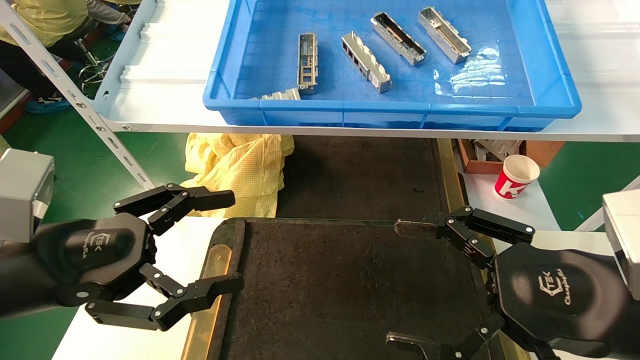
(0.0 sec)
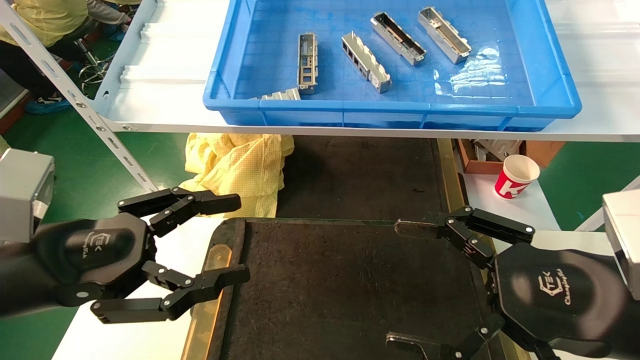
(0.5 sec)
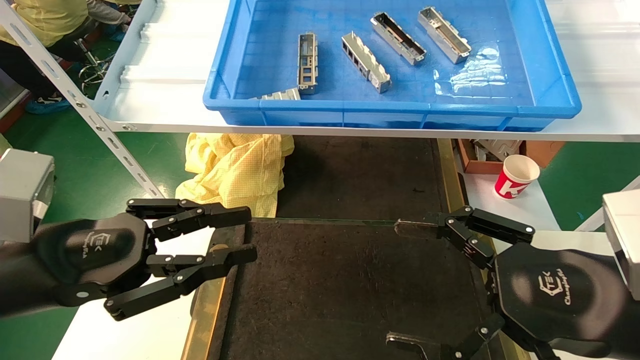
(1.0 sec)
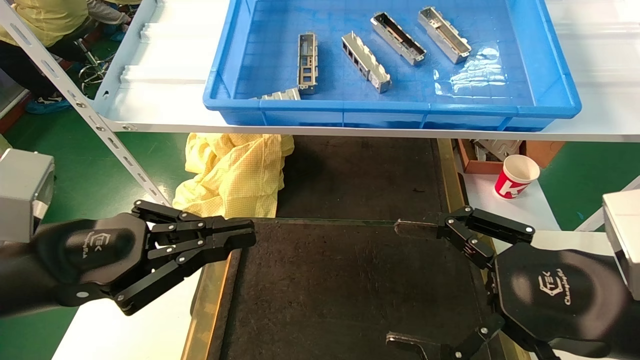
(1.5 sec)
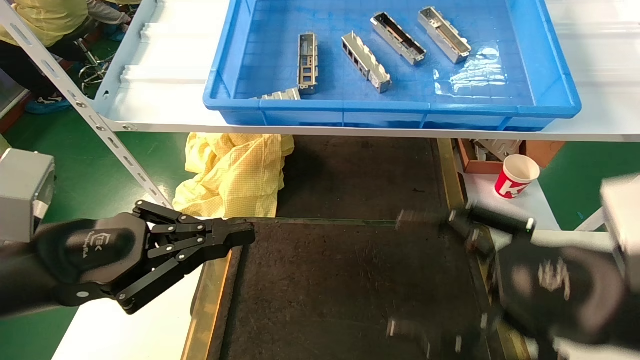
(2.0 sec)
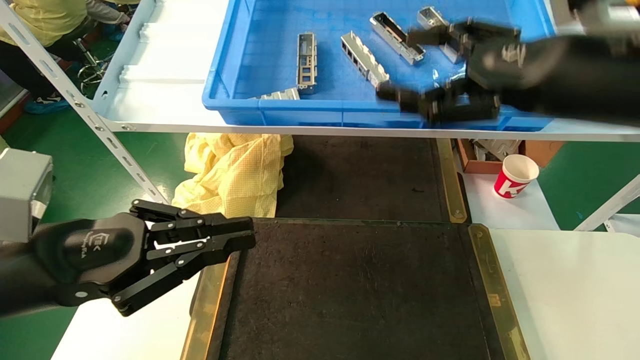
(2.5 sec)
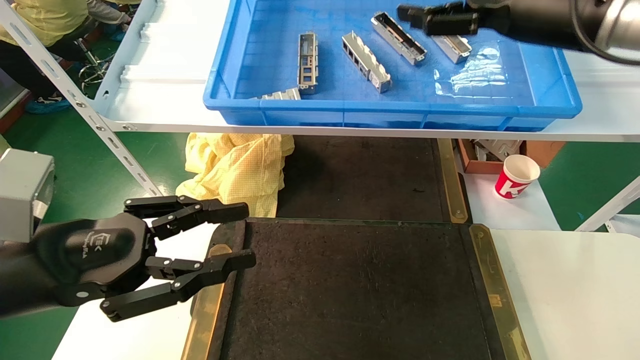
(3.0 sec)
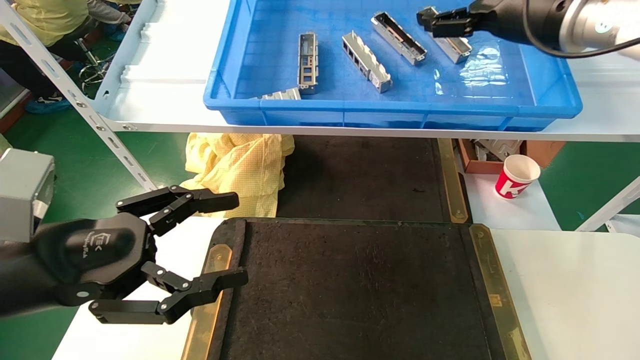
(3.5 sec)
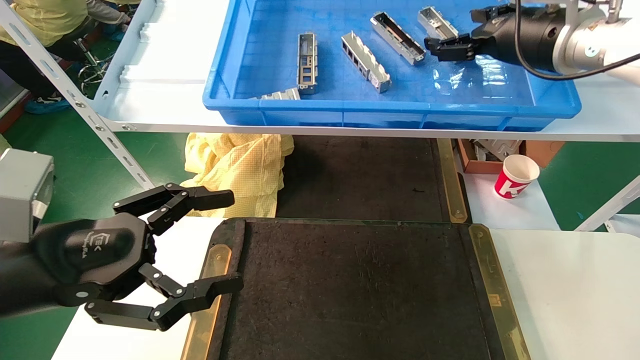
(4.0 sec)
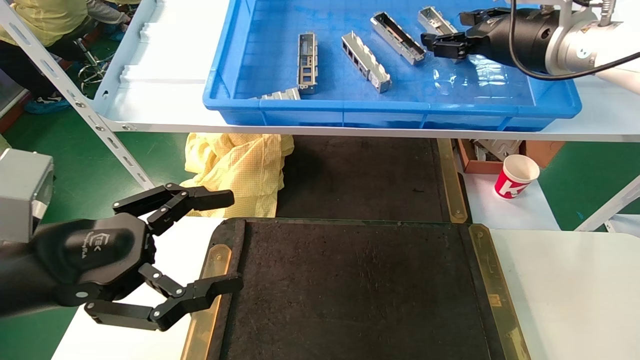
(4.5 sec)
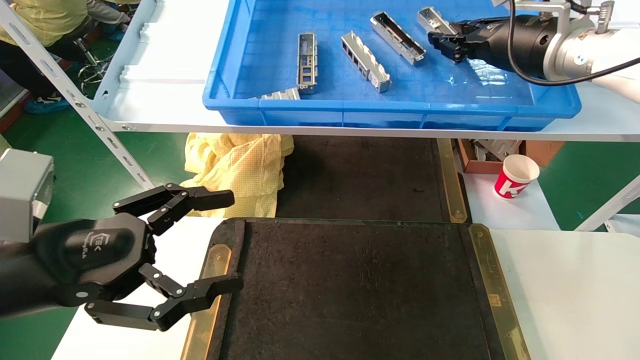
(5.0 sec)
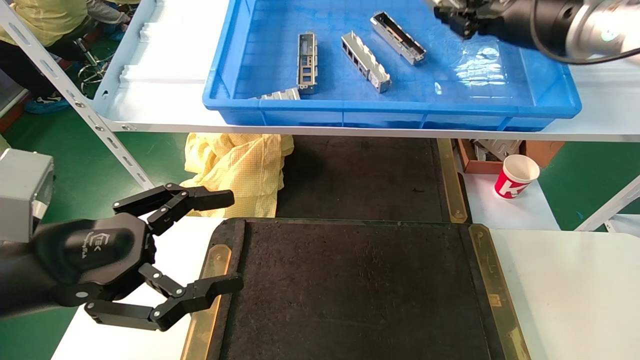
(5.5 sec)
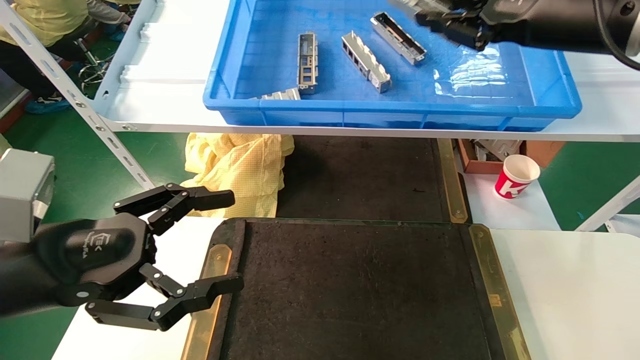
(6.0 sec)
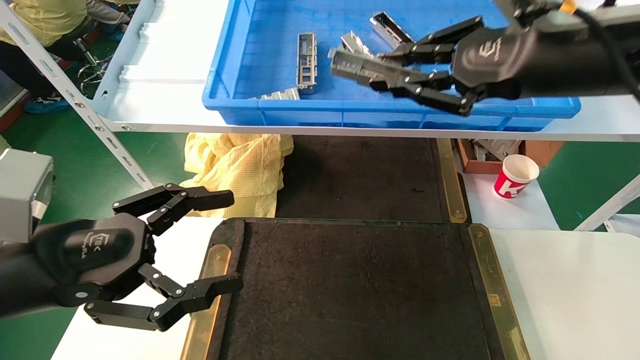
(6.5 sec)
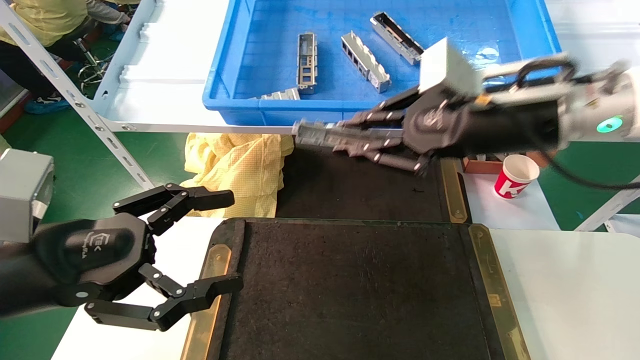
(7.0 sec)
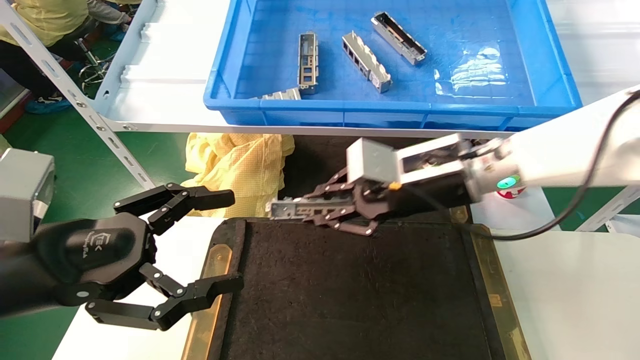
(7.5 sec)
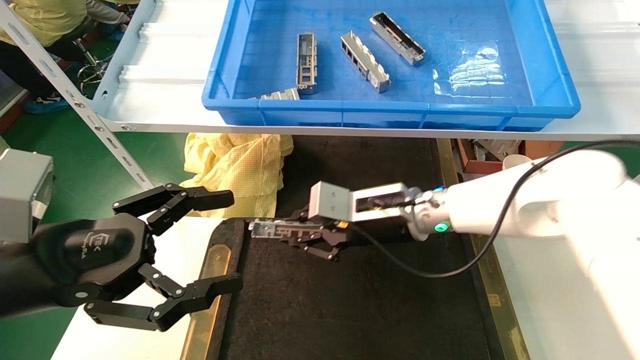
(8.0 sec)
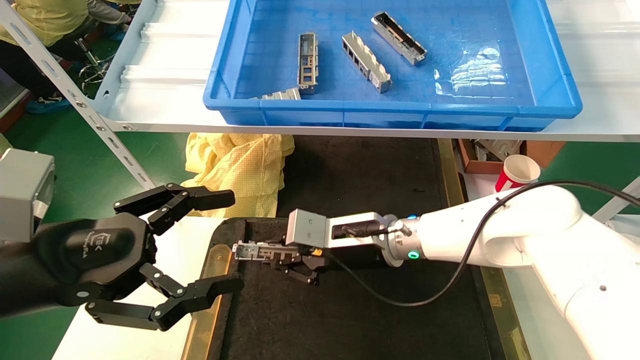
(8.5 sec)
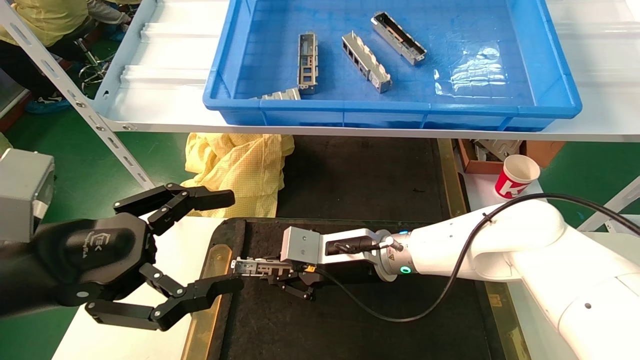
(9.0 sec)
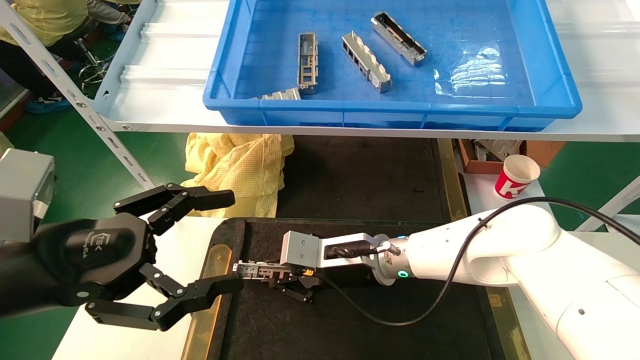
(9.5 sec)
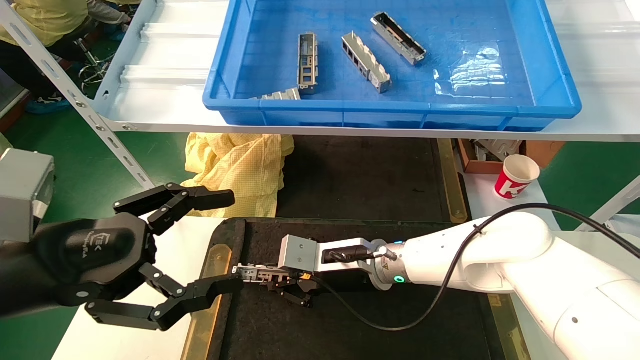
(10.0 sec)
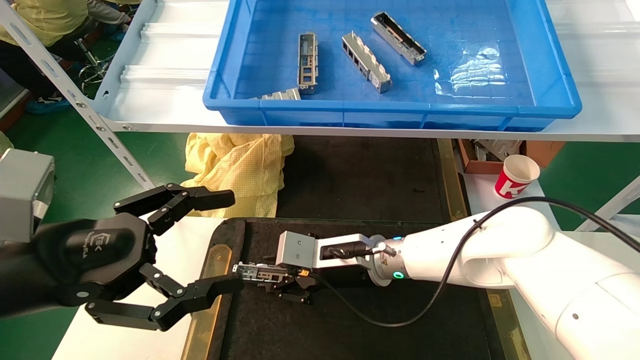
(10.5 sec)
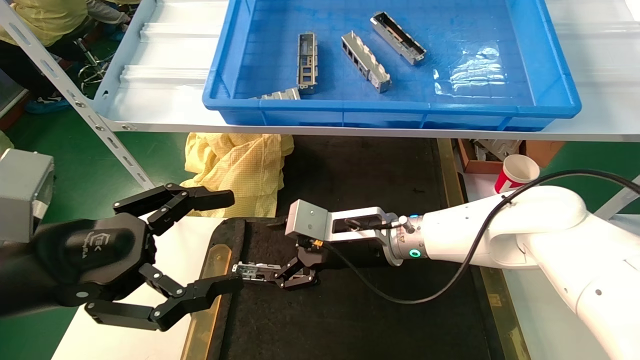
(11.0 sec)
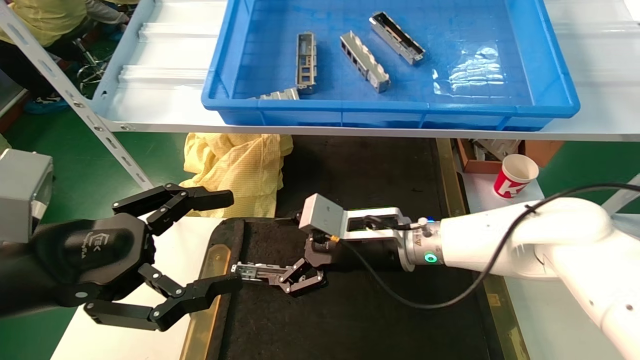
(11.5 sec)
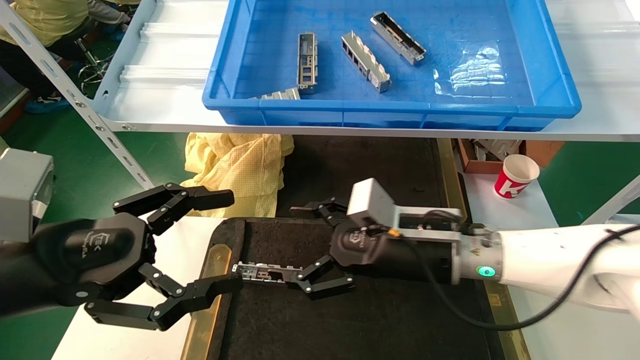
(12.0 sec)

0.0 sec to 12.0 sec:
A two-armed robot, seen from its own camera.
Task of the whole recording: grasp the part and place them on the black container.
Step, 2.0 sec to 5.5 sec: Pick up and lift the front USB bracket from the feeding area.
Step, 6.0 sec to 11.0 sec: Place the front USB bracket into the box.
0.0 sec to 2.0 sec: The left gripper closes its fingers.
2.0 sec to 4.0 sec: The right gripper shifts about 30 cm forward and upward. The left gripper opens up.
4.0 sec to 6.0 sec: The right gripper moves backward, some 10 cm, and closes.
6.0 sec to 8.0 sec: The right gripper shifts roughly 30 cm downward and to the left.
8.0 sec to 10.0 sec: The right gripper moves downward, approximately 10 cm.
10.0 sec to 12.0 sec: The right gripper goes approximately 10 cm to the right, backward and upward, and opens its fingers.

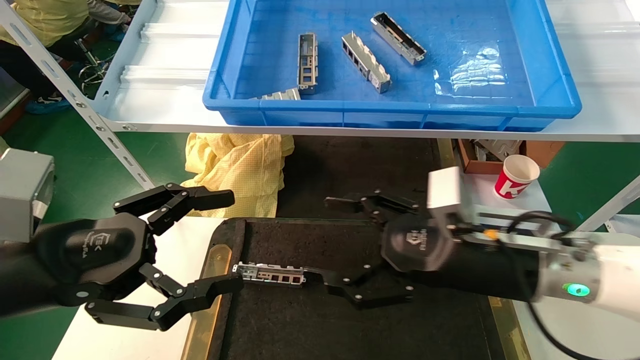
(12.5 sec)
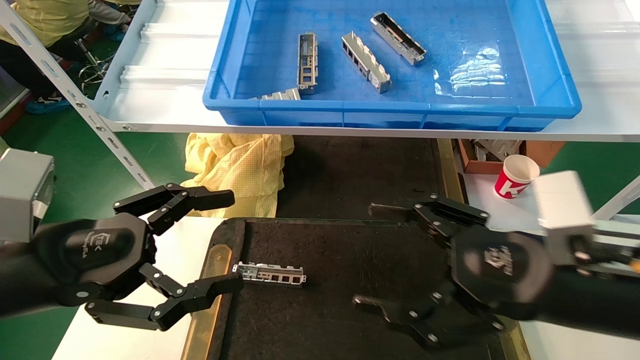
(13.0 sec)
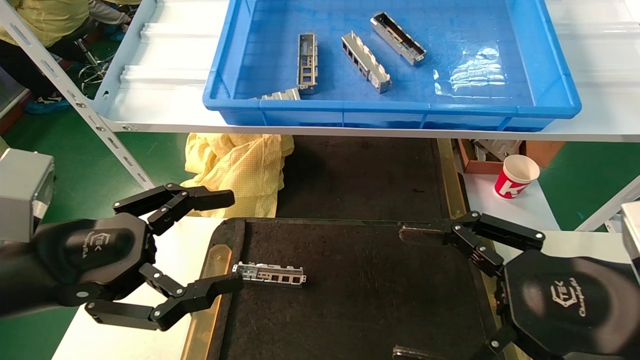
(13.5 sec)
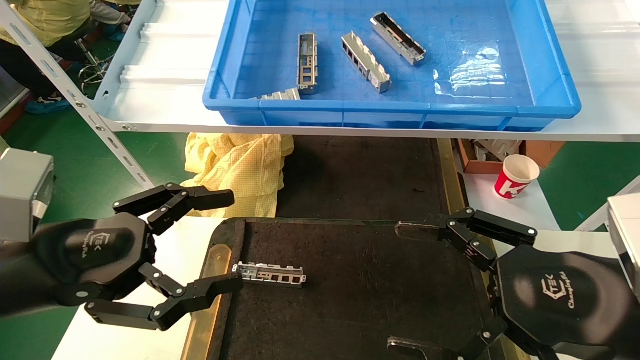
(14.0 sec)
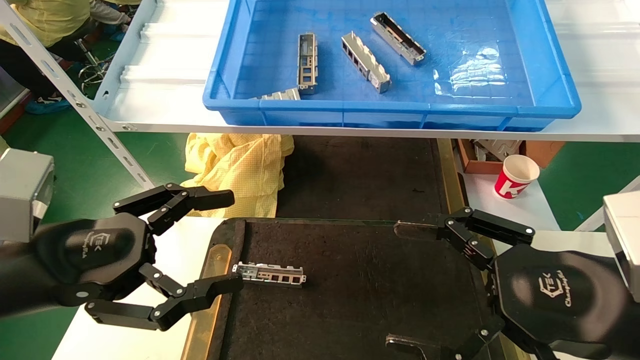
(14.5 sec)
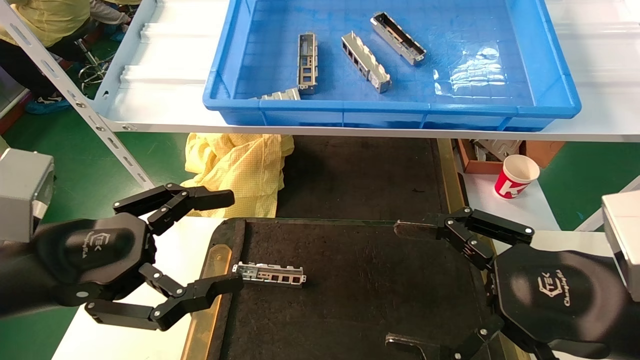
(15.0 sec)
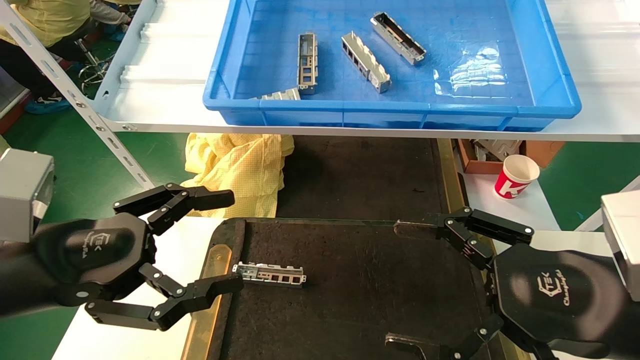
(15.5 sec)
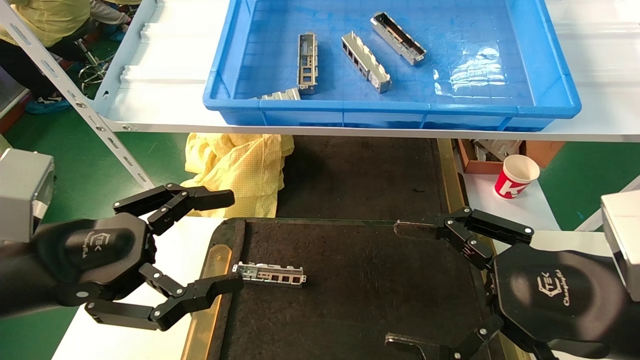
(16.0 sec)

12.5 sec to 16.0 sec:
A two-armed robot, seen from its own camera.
Task of the whole recording: grasp the part and place them on the black container.
12.5 sec to 14.5 sec: The right gripper moves backward and to the right, some 15 cm.
14.5 sec to 16.0 sec: The two grippers keep their place.
